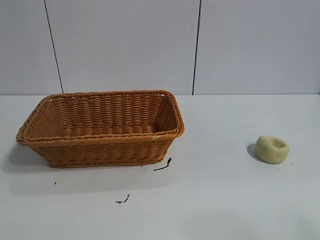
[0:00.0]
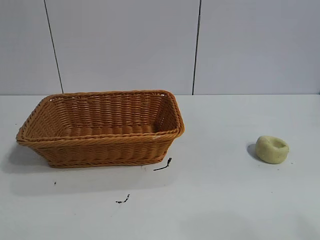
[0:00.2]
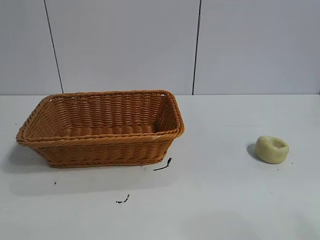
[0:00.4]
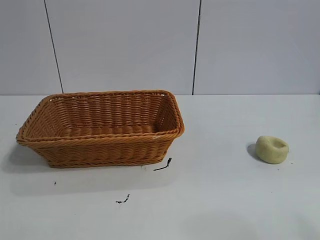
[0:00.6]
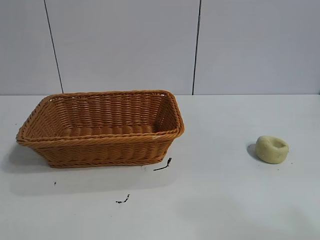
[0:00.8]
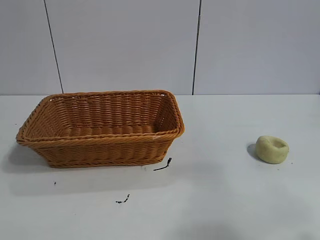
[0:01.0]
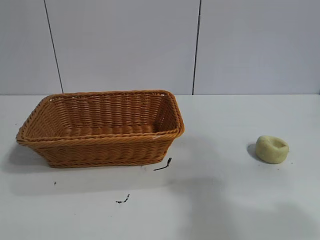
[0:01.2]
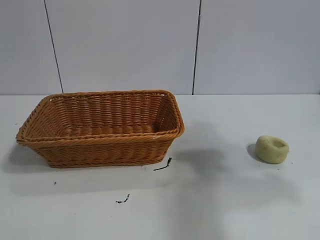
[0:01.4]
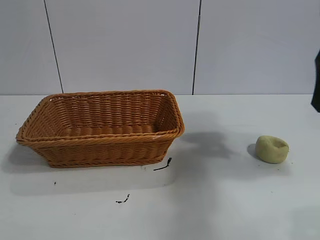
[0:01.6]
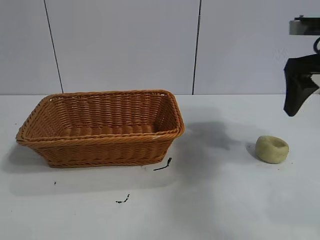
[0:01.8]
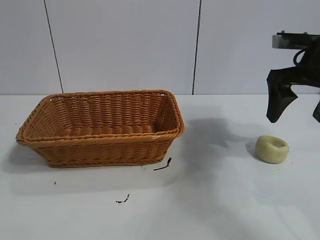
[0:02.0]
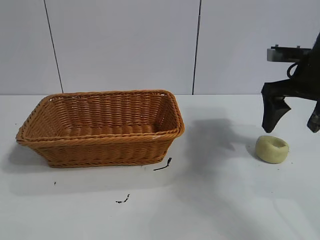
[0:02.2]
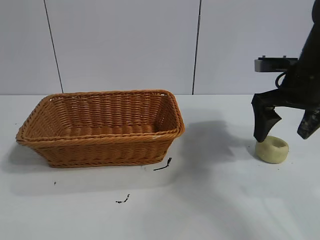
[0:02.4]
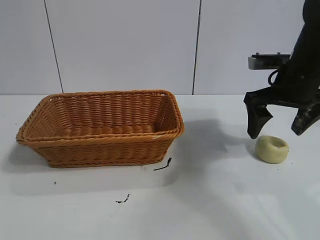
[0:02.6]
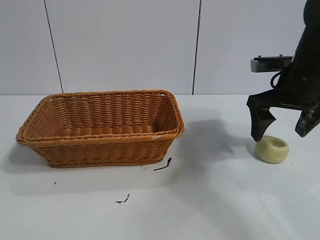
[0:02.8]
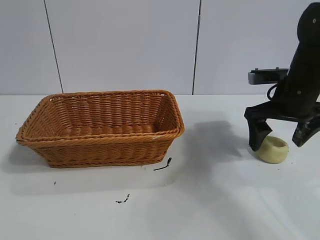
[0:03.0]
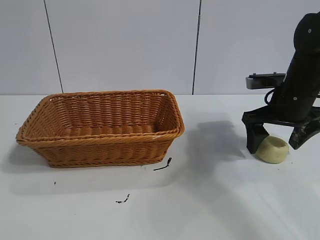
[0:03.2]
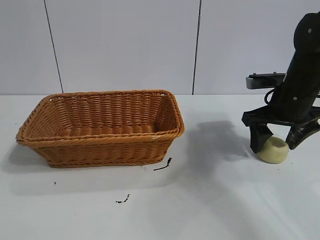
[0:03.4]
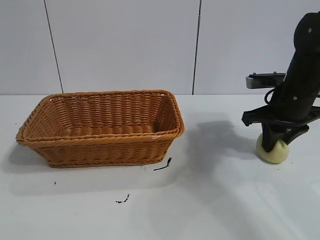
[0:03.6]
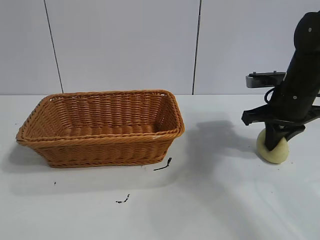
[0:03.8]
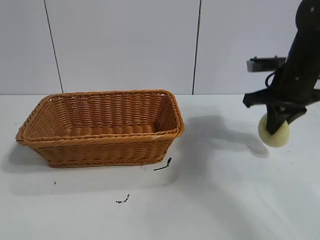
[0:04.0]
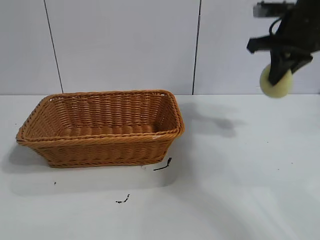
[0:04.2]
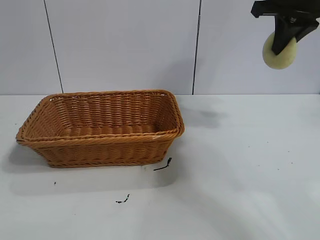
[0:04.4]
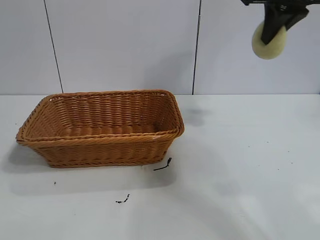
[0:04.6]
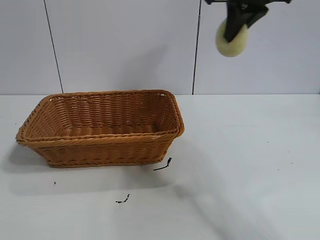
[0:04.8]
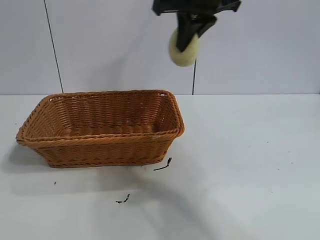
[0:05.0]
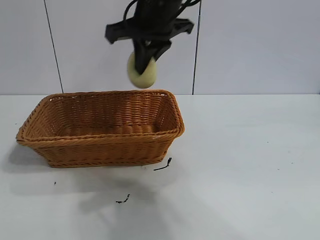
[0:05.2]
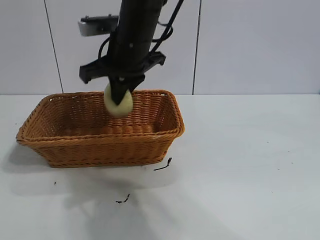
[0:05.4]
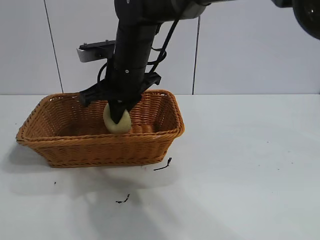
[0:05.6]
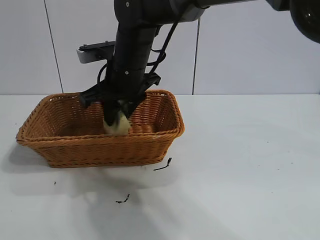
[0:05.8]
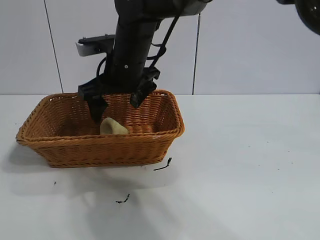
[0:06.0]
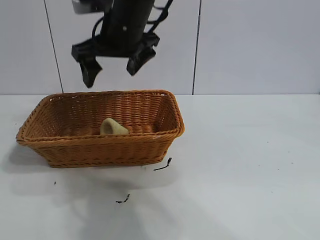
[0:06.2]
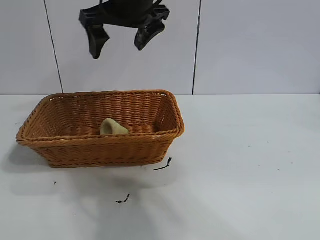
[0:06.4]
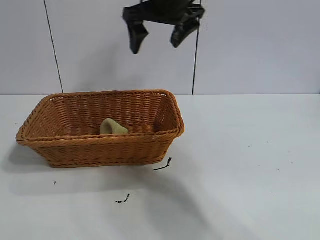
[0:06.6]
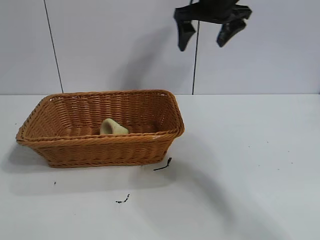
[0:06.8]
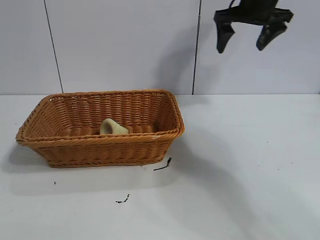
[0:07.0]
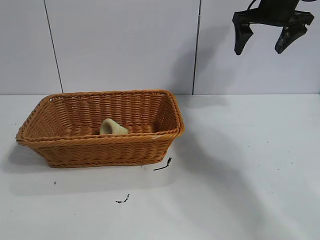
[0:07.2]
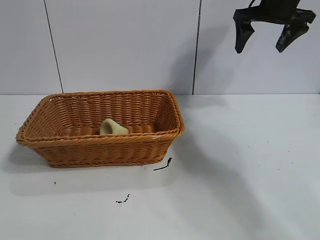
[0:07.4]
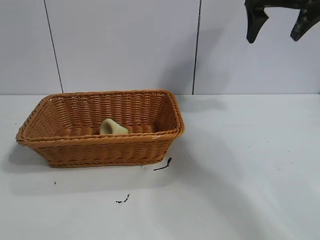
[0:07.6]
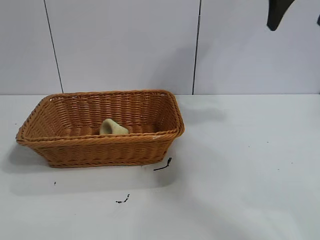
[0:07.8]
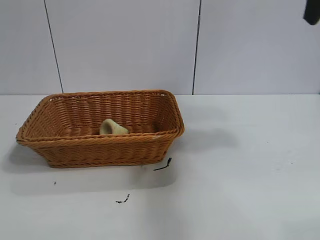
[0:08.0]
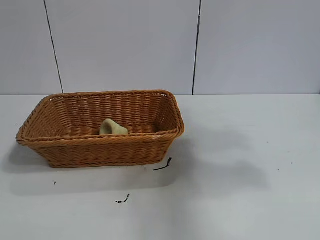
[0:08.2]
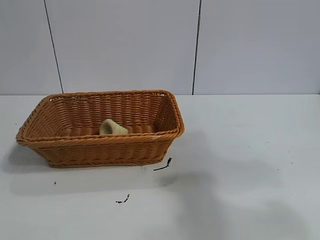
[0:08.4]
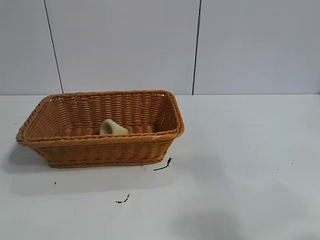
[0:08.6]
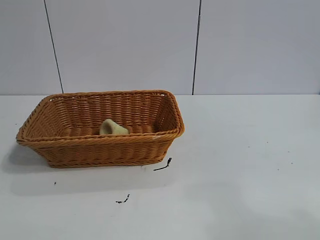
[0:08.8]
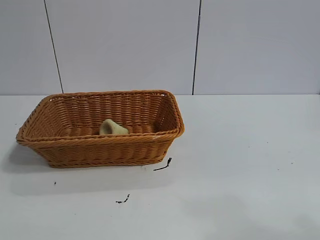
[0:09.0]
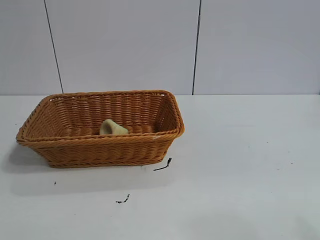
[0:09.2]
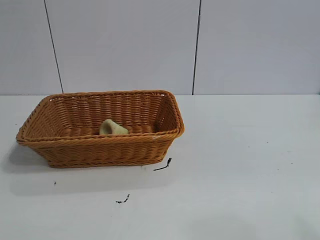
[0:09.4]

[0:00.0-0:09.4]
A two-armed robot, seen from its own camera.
Task of the whole recording: pick up the egg yolk pastry and put it into the basket.
Step, 0:00.8 to 0:03.4: Grasp egg yolk pastry with right gripper.
Step, 0:03.8 to 0:05.8: Place the egg yolk pastry in the basket with right gripper.

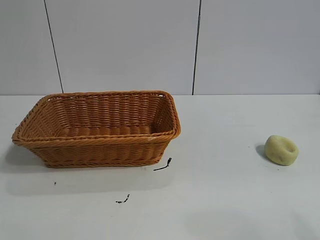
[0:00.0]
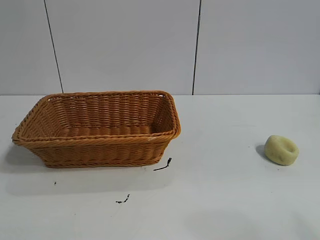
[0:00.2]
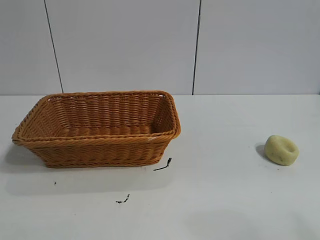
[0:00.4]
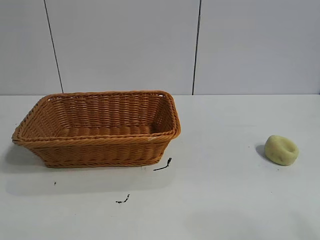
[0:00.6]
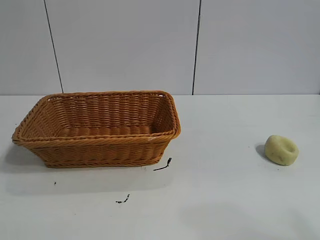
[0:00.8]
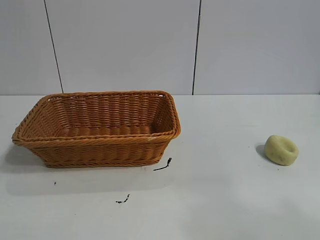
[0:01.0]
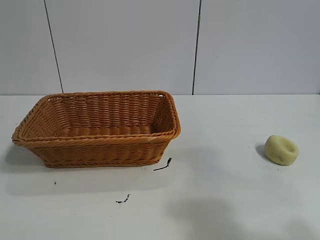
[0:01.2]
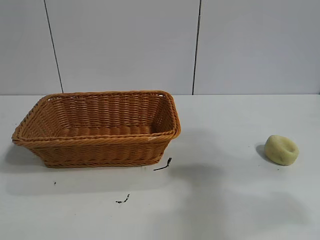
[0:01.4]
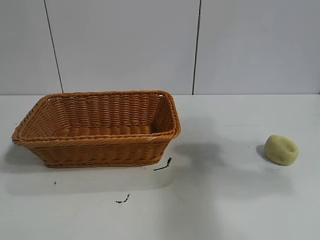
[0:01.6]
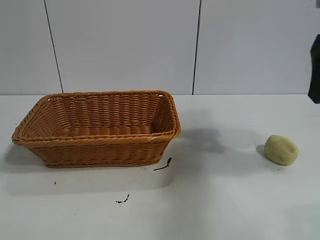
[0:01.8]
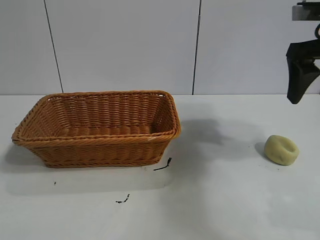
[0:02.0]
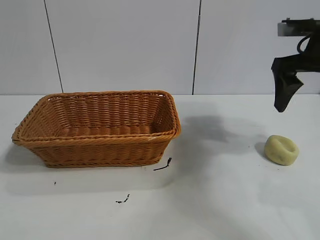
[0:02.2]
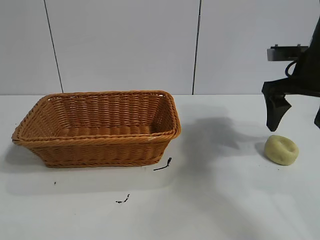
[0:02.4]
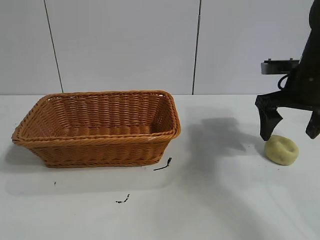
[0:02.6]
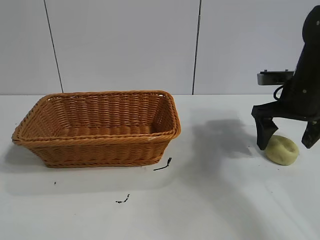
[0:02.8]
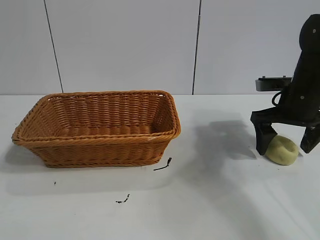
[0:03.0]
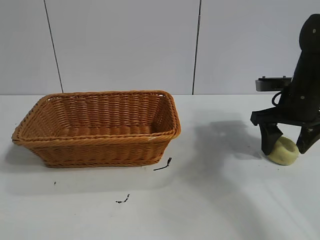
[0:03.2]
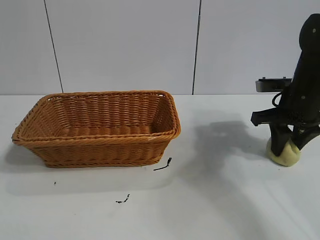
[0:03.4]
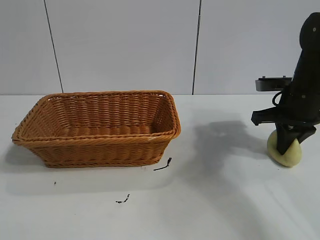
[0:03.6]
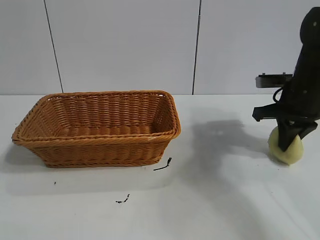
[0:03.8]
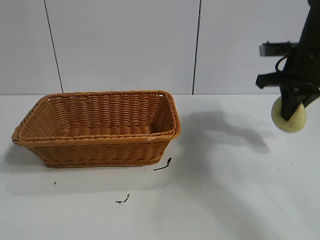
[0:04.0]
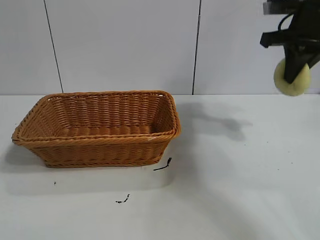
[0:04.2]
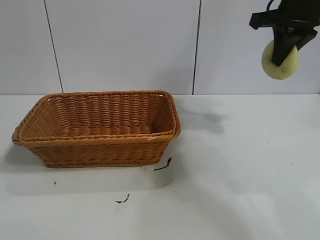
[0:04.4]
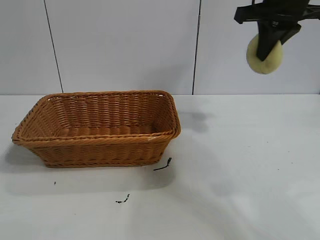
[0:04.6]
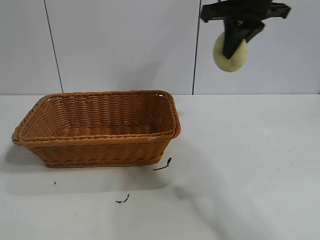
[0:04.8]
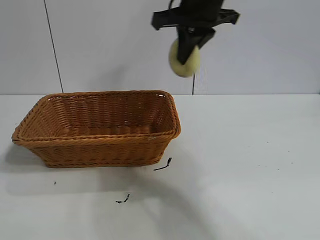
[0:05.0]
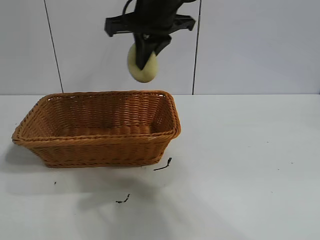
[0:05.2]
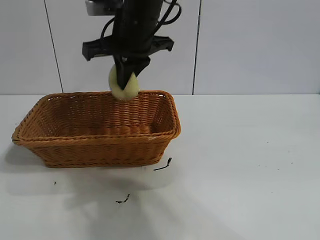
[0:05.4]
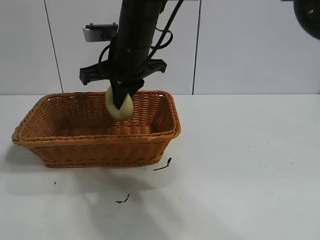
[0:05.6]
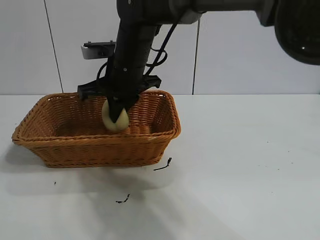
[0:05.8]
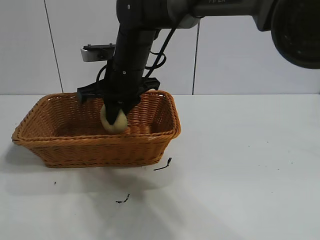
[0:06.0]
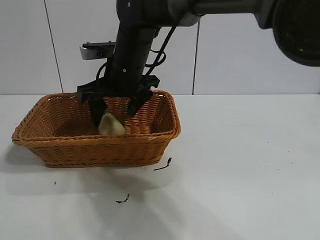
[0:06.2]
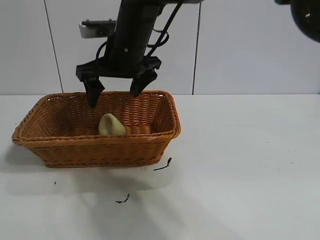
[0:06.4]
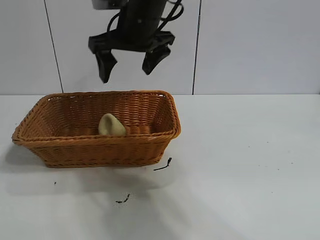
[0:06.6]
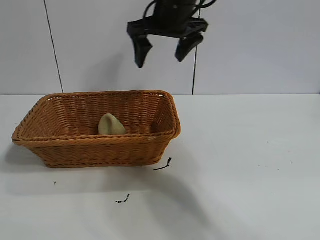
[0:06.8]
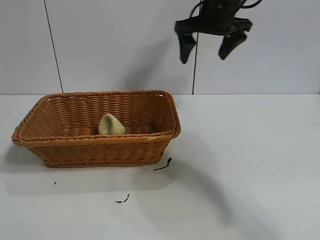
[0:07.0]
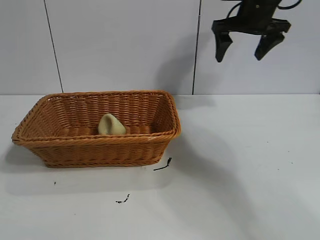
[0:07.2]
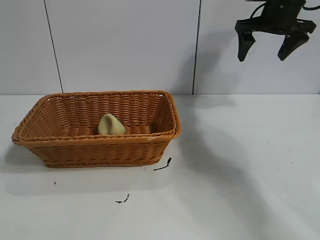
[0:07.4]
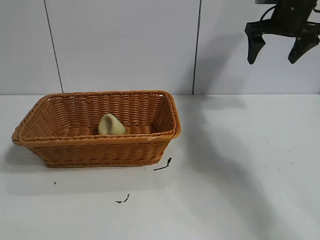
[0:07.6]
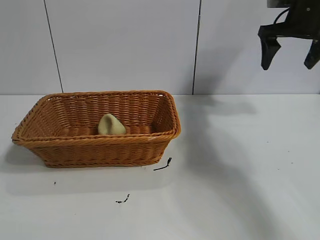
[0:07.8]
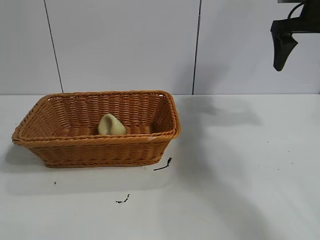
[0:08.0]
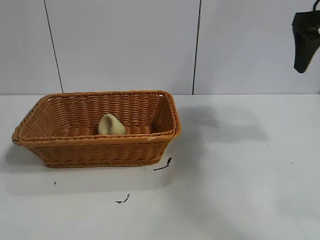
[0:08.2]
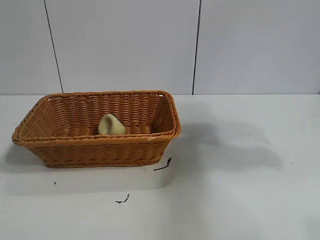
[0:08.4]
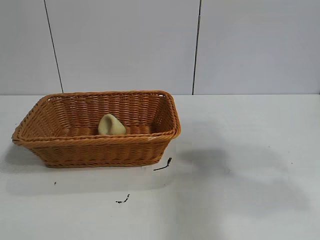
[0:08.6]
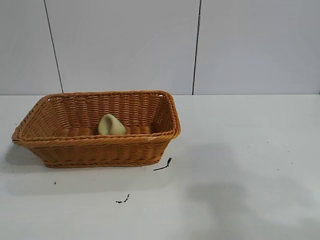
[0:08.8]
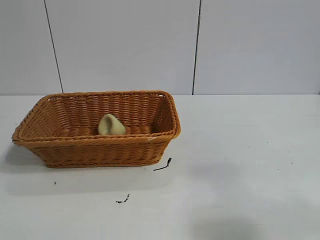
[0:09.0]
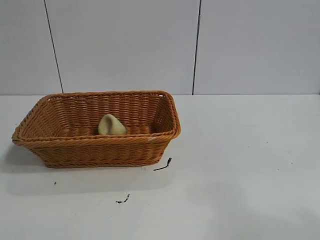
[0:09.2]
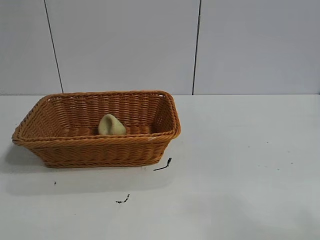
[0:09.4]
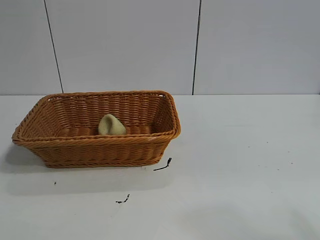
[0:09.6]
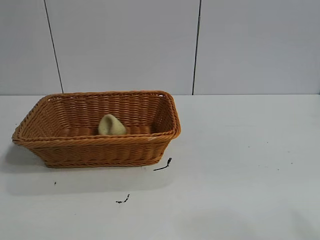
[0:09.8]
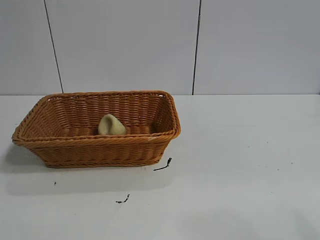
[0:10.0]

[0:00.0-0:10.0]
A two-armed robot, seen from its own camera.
Task of the whole recording: pick up the egg yolk pastry and put it into the basket.
Step, 0:00.8 to 0:03.4: Grasp egg yolk pastry with right gripper.
Step, 0:03.6 to 0:06.2: Place the egg yolk pastry in the basket with right gripper.
